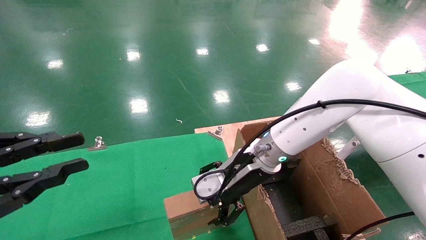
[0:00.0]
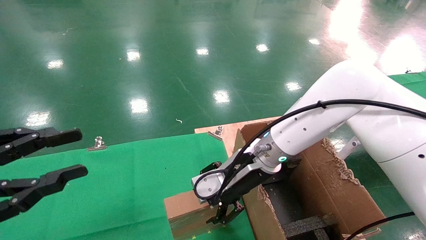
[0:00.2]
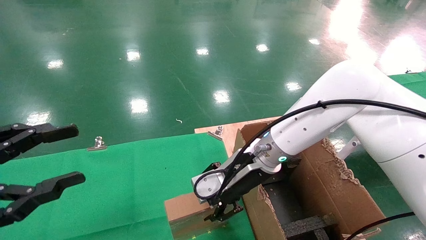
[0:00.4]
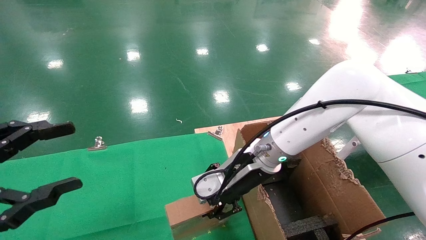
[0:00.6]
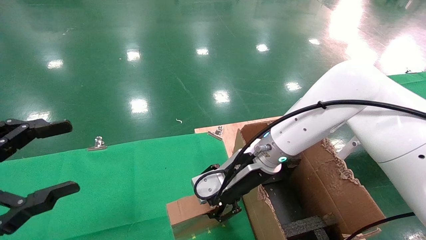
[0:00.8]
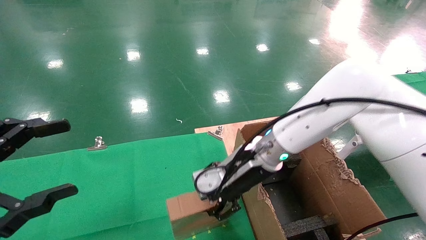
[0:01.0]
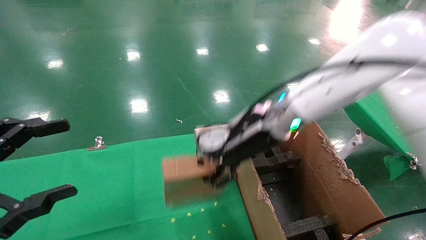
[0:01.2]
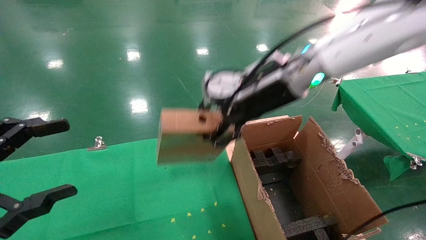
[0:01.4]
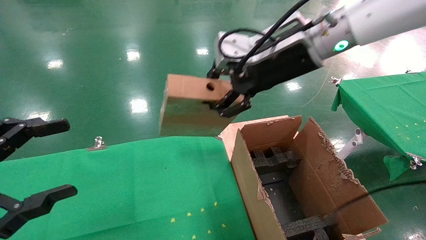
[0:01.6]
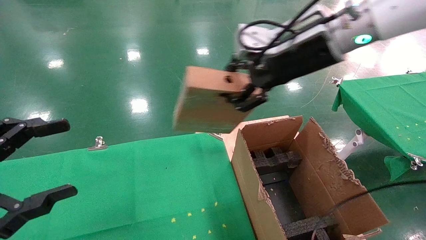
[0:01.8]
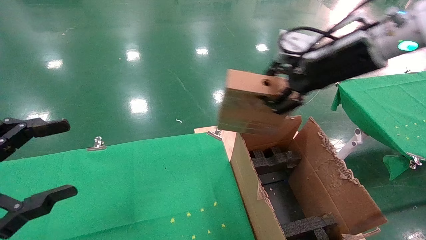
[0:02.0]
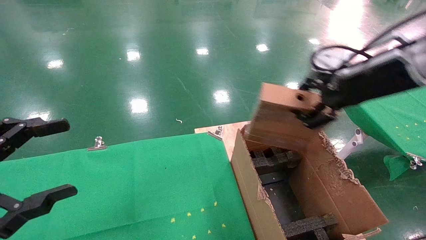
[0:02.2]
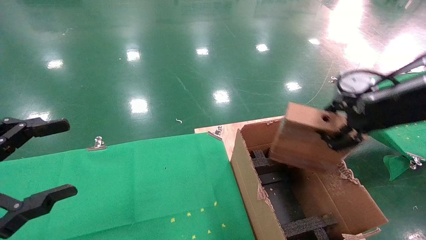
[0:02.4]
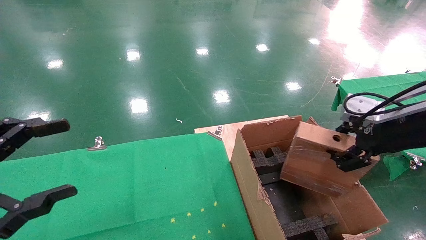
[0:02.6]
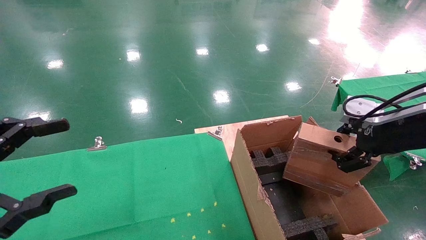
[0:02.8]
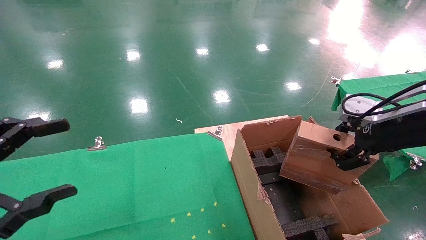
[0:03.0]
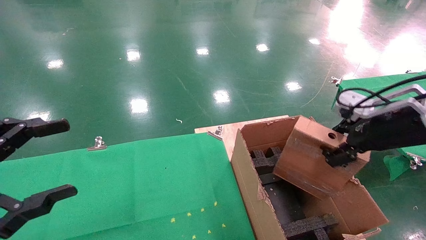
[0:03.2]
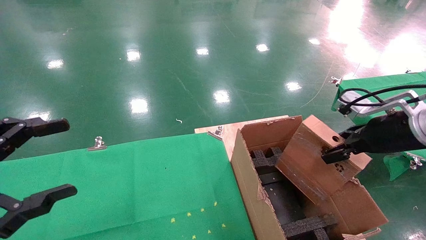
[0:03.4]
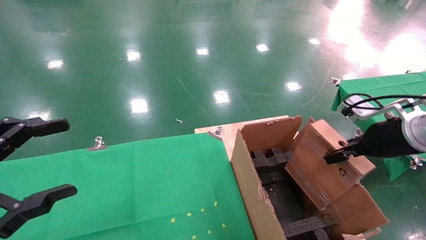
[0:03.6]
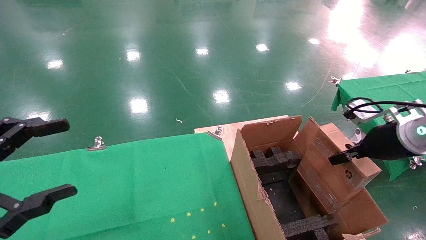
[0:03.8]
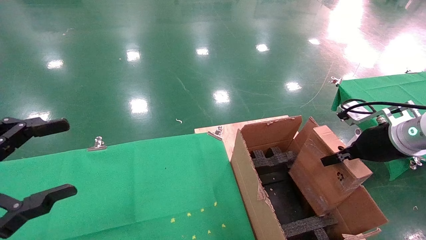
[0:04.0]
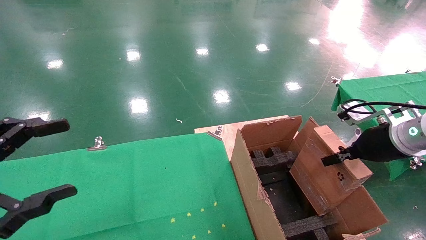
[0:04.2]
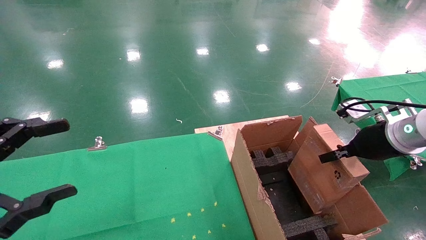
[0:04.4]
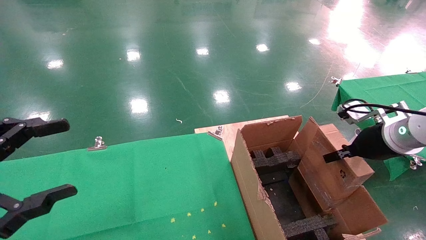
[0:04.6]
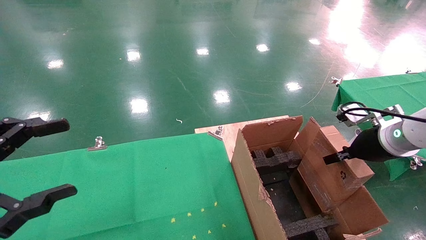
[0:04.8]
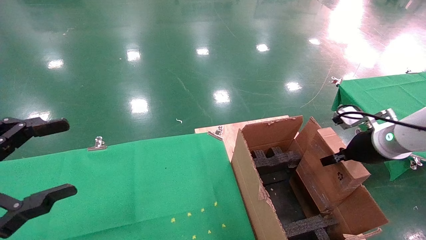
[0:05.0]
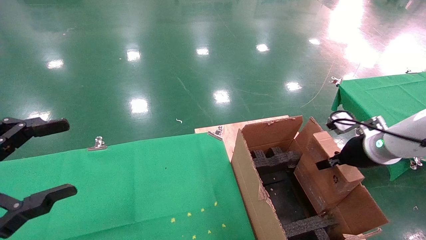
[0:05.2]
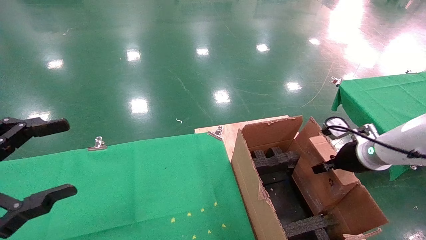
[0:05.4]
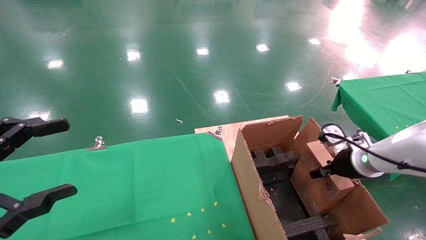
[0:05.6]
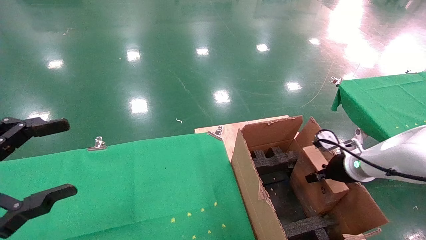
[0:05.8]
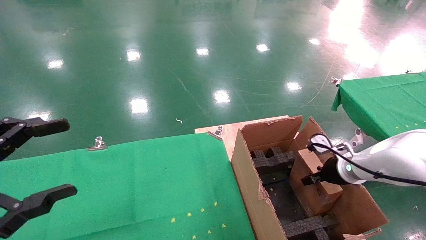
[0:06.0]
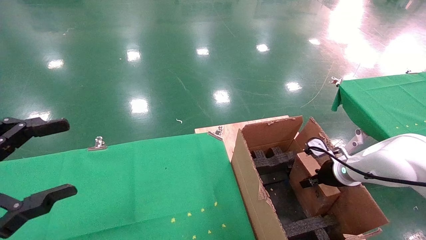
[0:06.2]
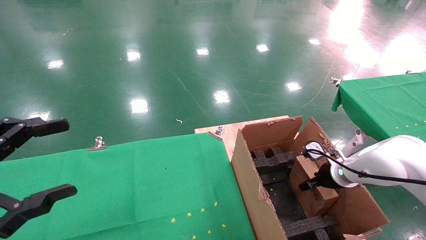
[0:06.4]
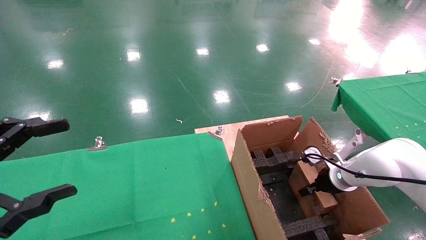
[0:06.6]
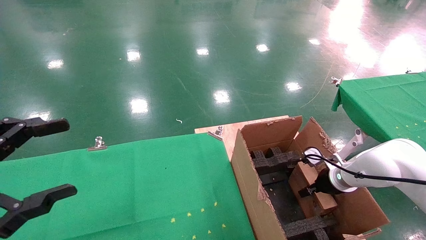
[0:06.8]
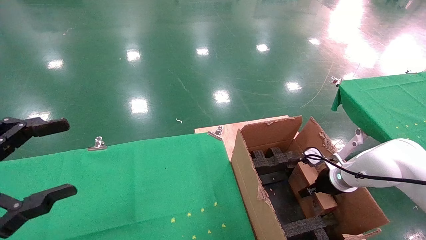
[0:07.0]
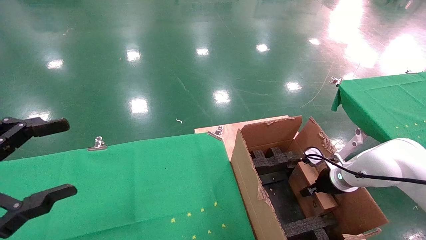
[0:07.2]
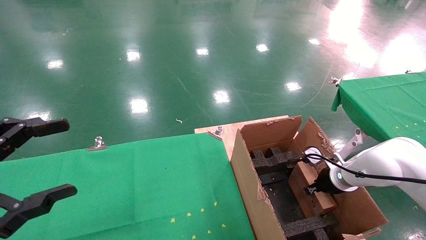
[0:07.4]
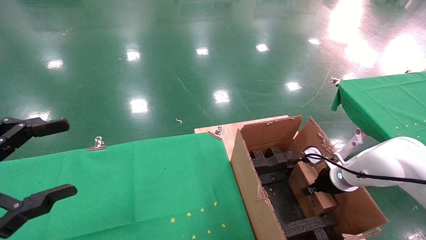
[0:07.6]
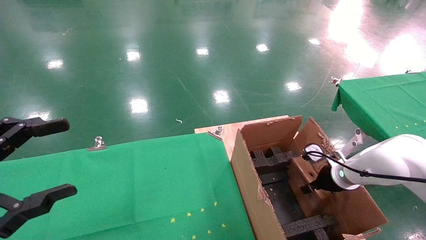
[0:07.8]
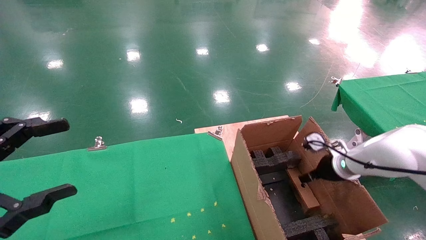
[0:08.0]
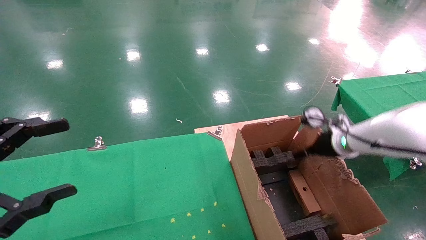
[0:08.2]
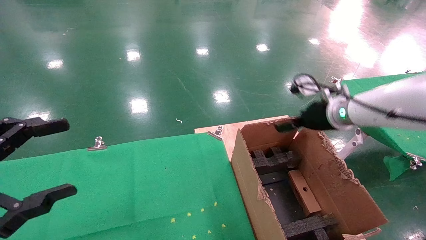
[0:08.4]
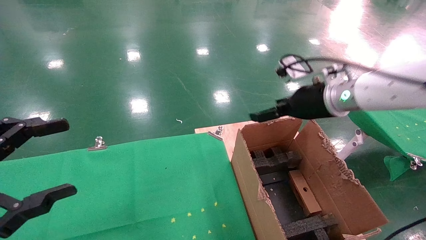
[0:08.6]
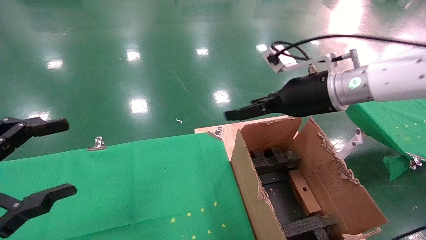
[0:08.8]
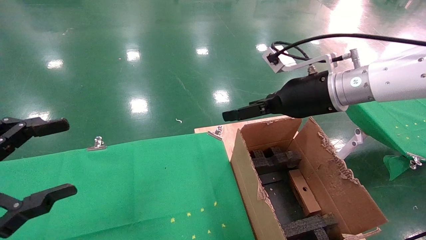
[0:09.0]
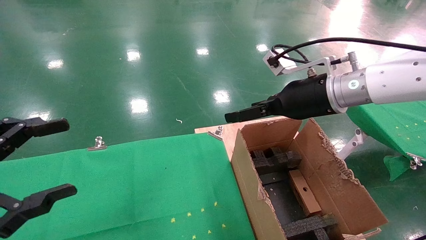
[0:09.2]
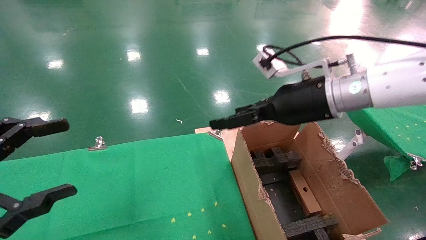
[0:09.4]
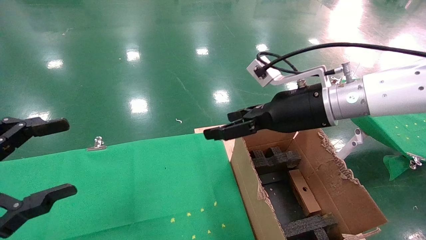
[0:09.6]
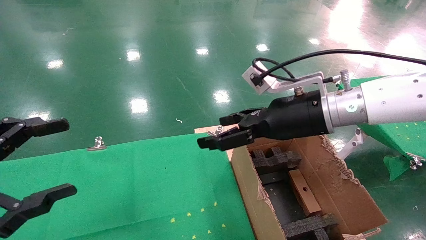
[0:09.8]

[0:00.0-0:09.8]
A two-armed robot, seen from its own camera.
Task of the whole recording: using a robotic arm to pick up a cardboard box and palace it the carton.
Step, 0:01.0 to 0:08.2: Place the mouse and the power cord paper box into the container.
0:00.0 to 0:01.4: The right gripper moves upward, some 15 cm, and closes up. Meanwhile the left gripper opens its fingers.
0:01.4 to 0:02.8: The right gripper moves to the right and backward, some 25 cm.
0:02.8 to 0:04.2: The right gripper moves downward and forward, about 10 cm.
0:04.2 to 0:05.6: The right gripper shifts some 10 cm downward and forward.
0:05.6 to 0:07.0: The right gripper shifts roughly 10 cm downward.
0:07.0 to 0:08.4: The right gripper goes roughly 20 cm upward, and opens up.
0:08.4 to 0:09.8: The right gripper travels to the left and backward by roughly 15 cm.

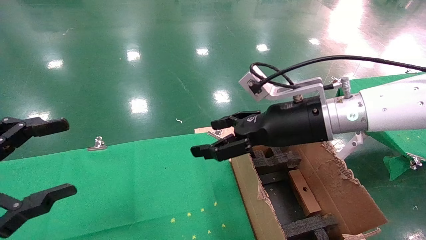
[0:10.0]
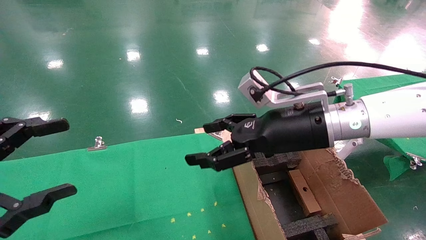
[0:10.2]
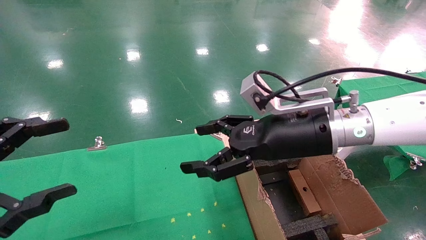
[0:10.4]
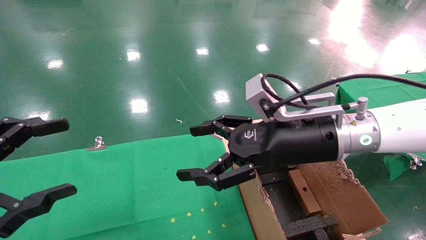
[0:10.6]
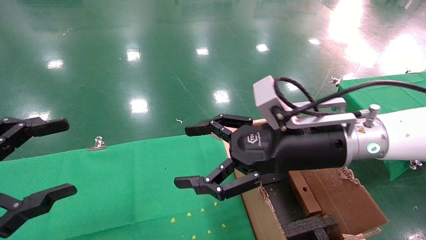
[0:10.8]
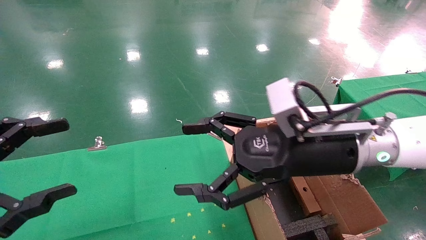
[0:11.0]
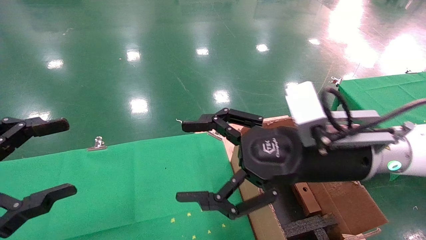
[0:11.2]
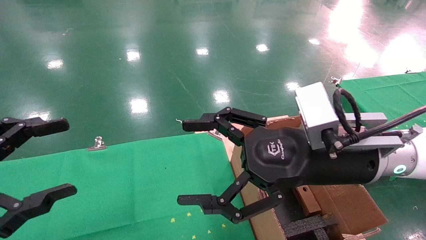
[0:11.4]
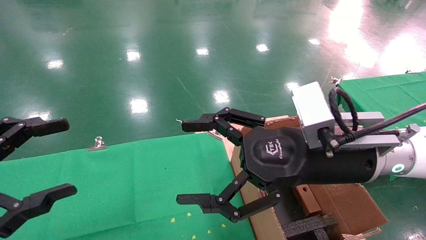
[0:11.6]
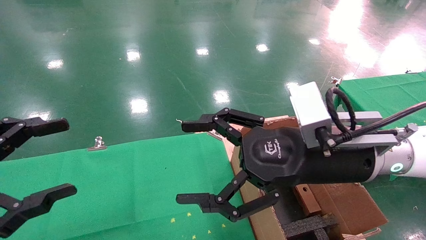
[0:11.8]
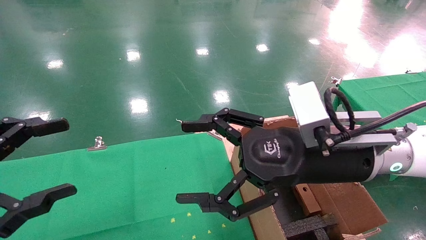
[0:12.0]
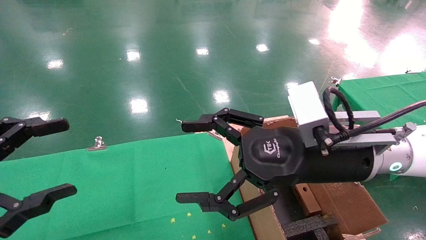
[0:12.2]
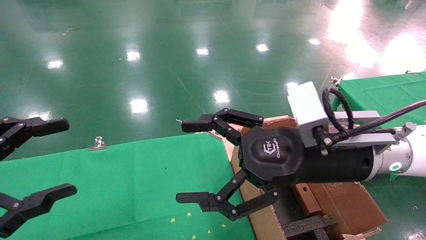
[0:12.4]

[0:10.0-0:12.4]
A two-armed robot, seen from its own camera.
Task of the whole recording: using a robotic arm to pick up a cardboard box and palace it the carton.
0:10.0 to 0:11.2: The right gripper moves backward, approximately 5 cm.
0:11.2 to 0:12.4: Both grippers stay put.

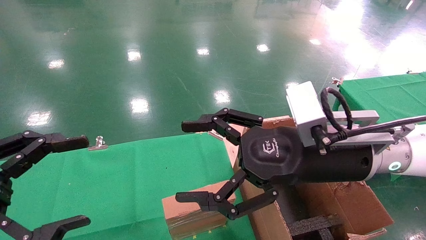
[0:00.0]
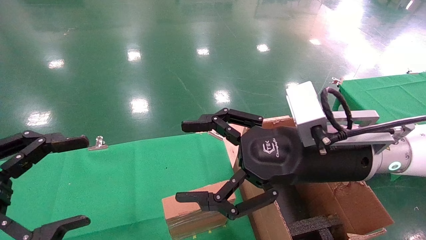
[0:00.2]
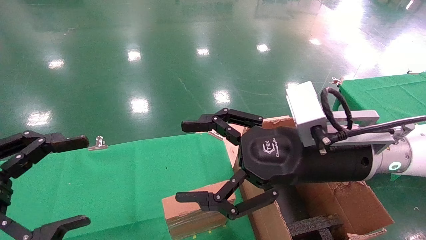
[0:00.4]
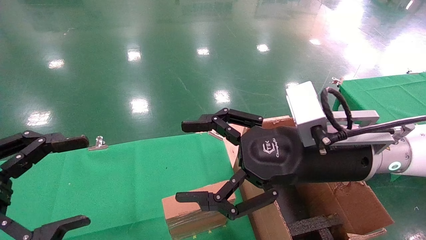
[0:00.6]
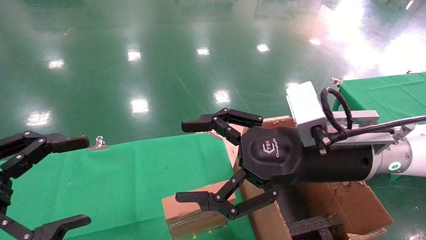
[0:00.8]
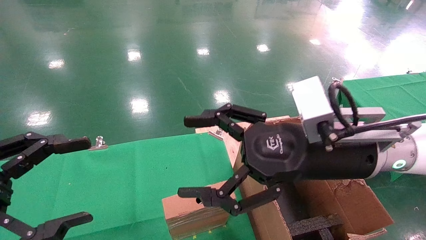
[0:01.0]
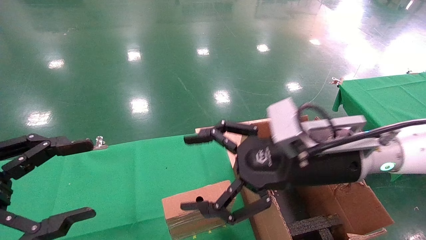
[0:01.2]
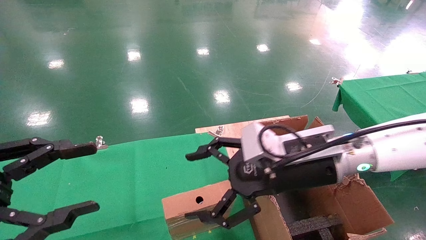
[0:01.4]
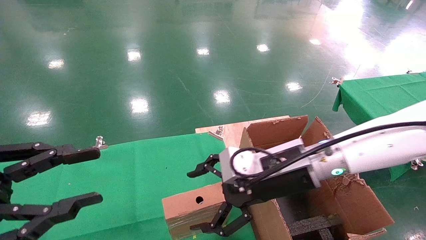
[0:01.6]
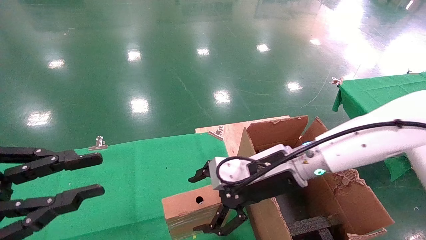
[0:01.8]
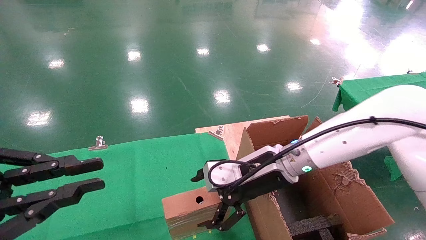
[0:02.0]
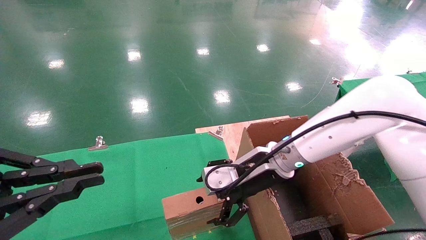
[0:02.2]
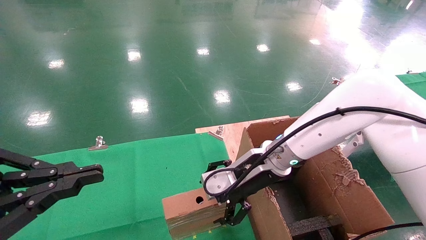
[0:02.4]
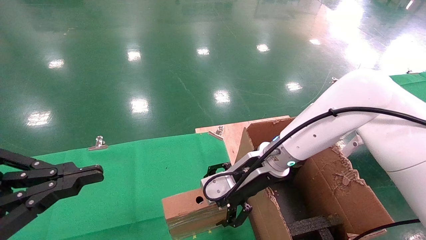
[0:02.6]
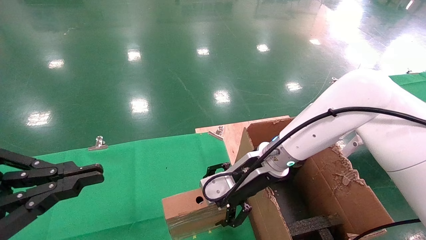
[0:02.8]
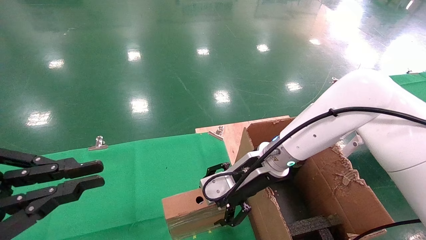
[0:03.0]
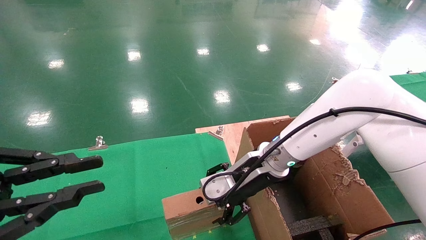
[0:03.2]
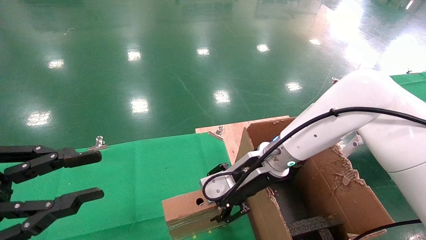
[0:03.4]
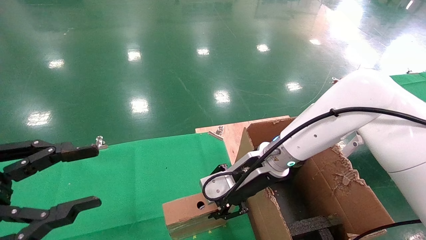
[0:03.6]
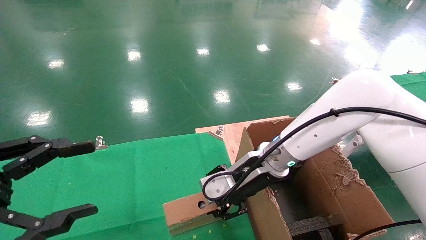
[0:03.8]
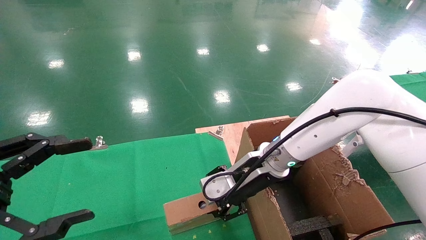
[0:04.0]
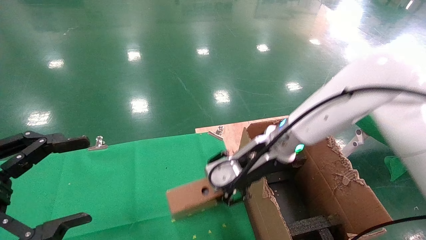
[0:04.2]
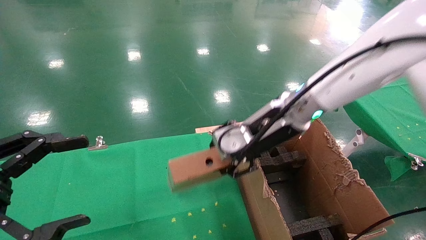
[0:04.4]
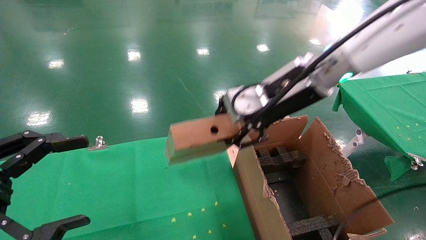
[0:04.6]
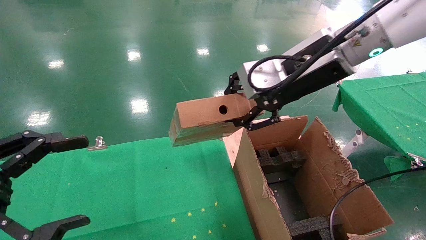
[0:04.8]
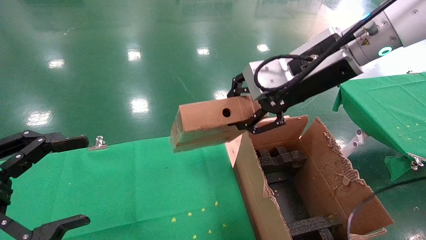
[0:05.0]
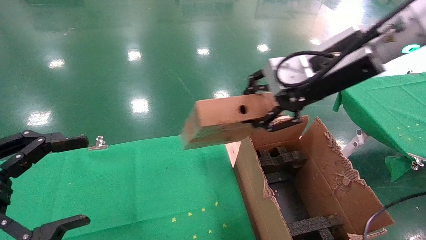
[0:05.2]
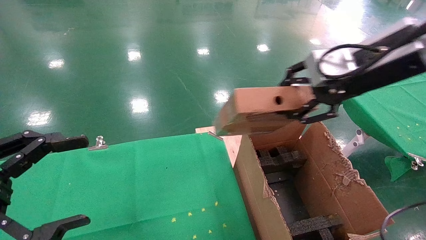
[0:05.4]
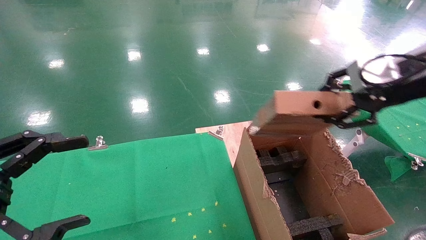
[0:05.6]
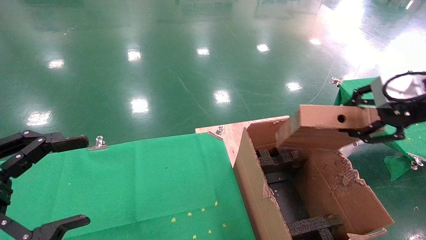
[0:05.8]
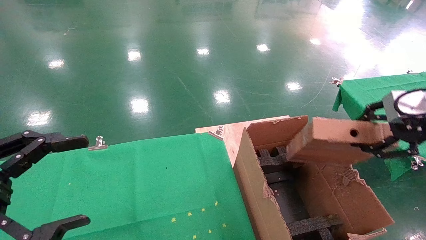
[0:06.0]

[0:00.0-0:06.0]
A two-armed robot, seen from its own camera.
Task of the whole recording: using a robotic arm to pick up a cardboard box and palace it the carton.
Step, 0:01.4 to 0:03.6: Pick up the mouse and the power cord paper box.
0:00.0 to 0:01.6: The right gripper goes some 10 cm forward and downward. Meanwhile the left gripper closes its fingers.
0:01.6 to 0:03.0: The left gripper closes its fingers; the right gripper shifts roughly 5 cm forward.
0:03.0 to 0:04.4: The right gripper shifts approximately 10 cm upward, and closes up. The left gripper opens up.
0:04.4 to 0:06.0: The right gripper is displaced to the right and backward by roughly 30 cm.
